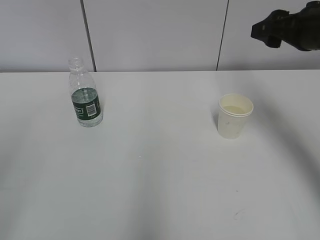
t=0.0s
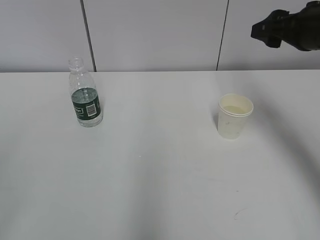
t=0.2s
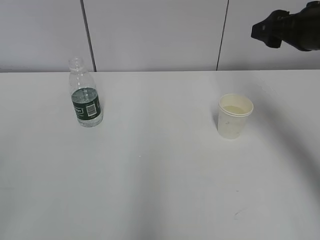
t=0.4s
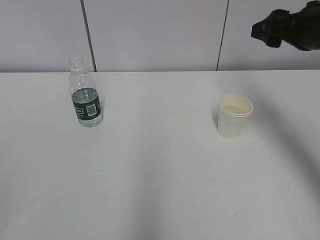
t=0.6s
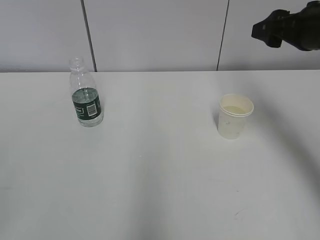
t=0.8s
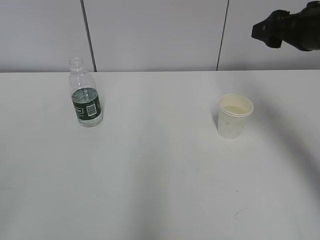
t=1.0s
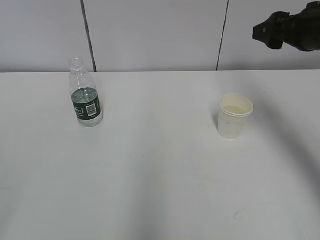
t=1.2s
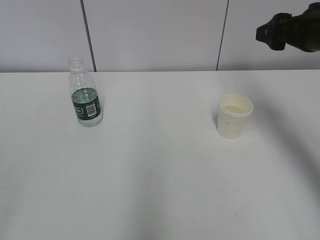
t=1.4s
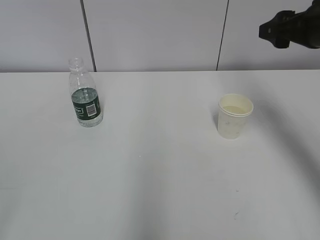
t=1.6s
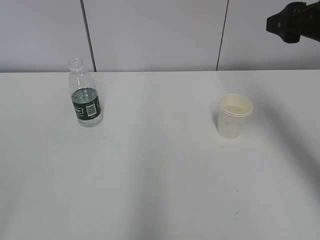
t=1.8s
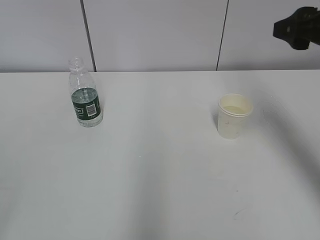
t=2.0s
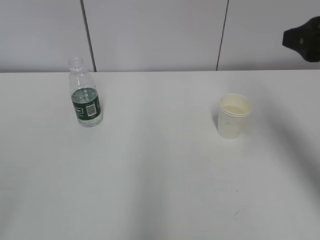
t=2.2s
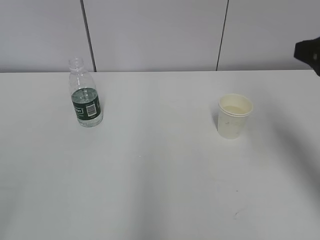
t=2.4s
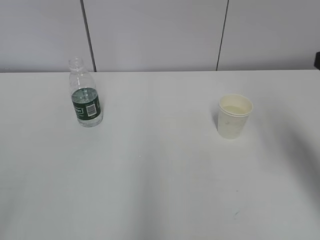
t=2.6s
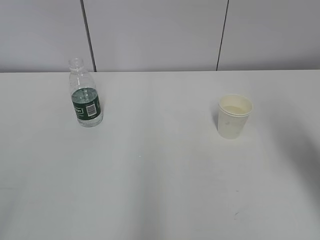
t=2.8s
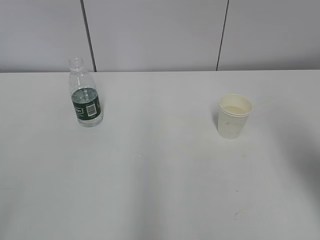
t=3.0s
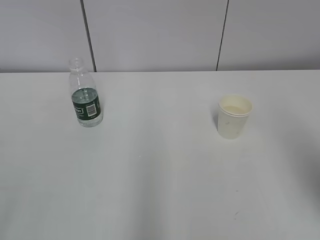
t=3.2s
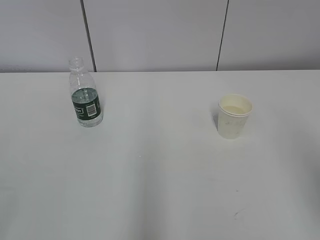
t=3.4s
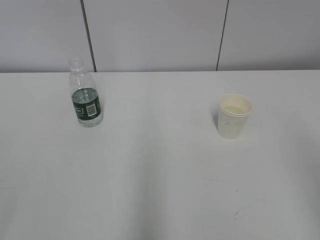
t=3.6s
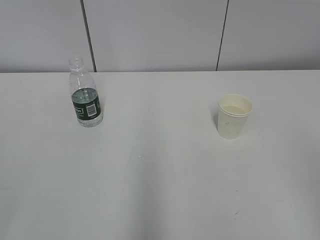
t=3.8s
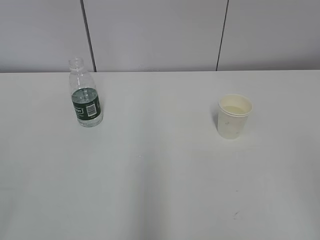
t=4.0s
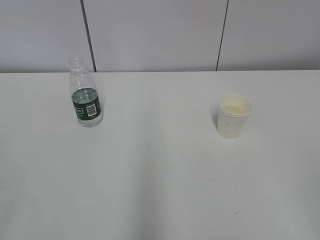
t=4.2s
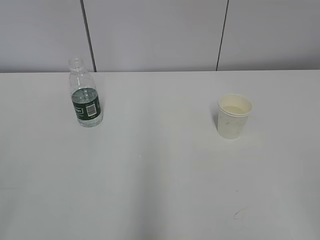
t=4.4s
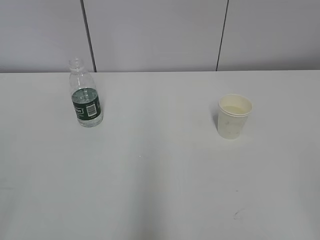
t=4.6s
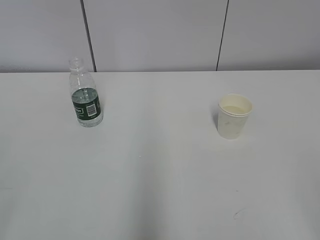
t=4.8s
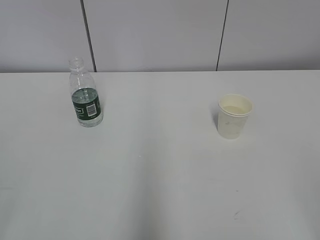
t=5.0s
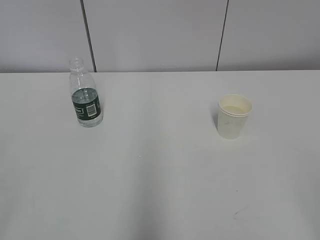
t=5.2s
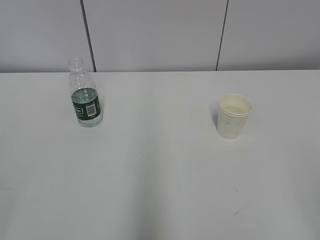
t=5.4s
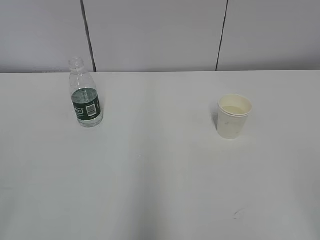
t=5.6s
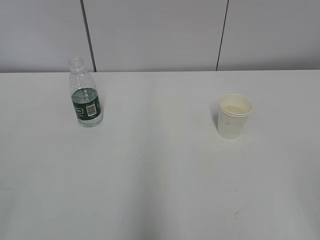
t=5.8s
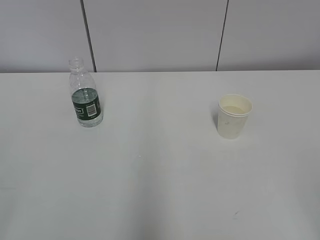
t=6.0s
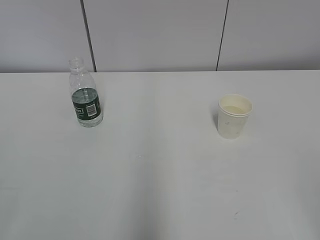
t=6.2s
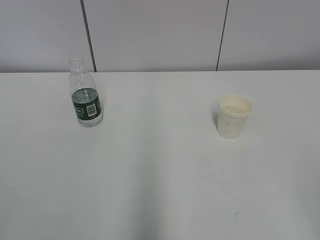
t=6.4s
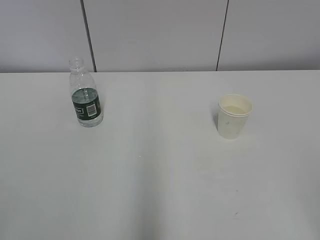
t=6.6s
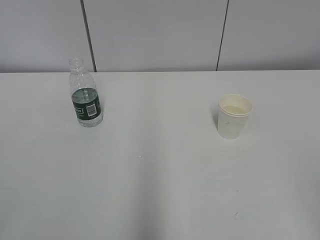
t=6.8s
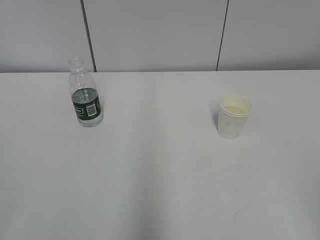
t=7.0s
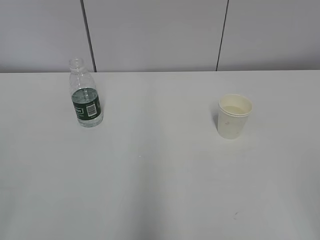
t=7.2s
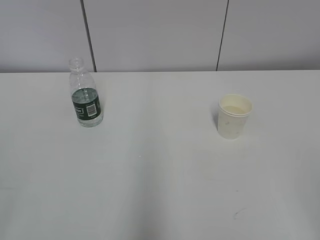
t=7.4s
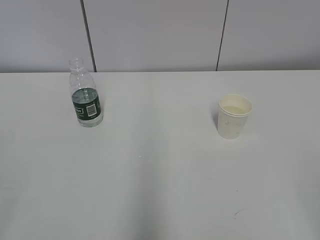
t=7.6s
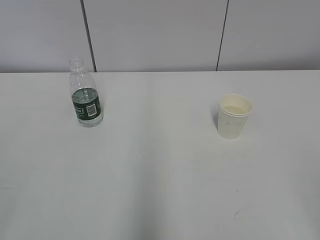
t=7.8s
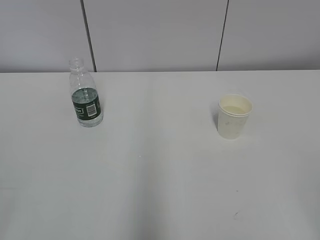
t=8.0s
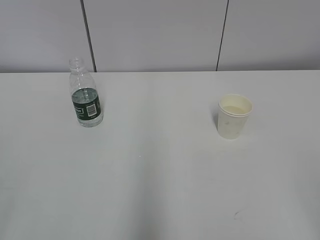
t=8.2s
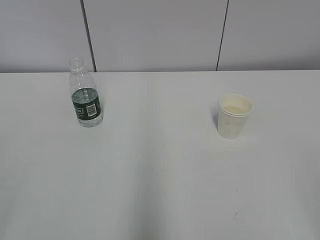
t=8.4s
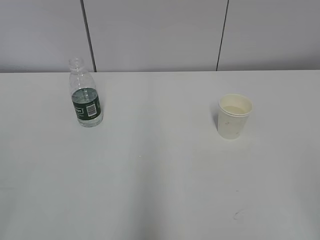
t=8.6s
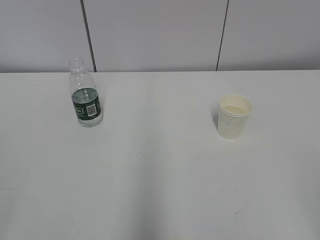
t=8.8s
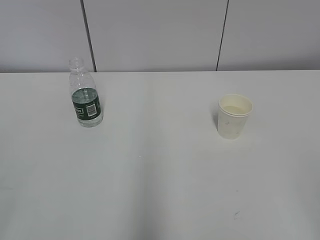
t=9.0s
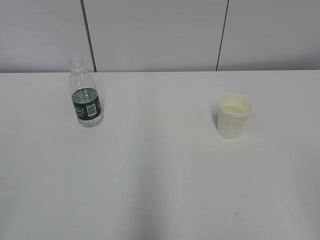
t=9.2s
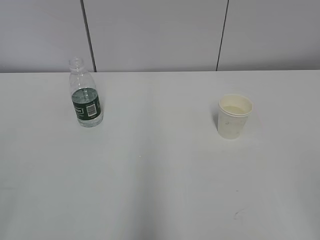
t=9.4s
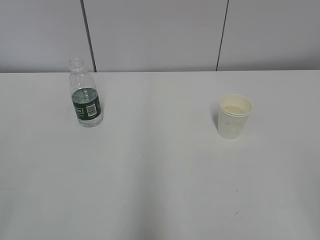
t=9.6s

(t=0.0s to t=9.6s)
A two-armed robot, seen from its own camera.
t=1.6s - t=3.2s: The right gripper travels backward by roughly 20 cm.
t=3.2s - t=4.8s: The right gripper travels backward by about 15 cm.
t=4.8s - t=9.6s: Neither gripper changes place.

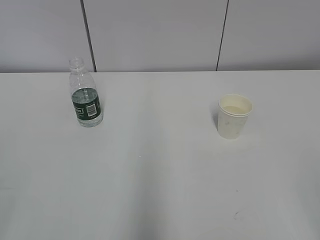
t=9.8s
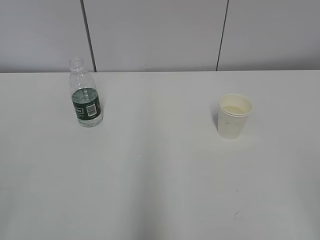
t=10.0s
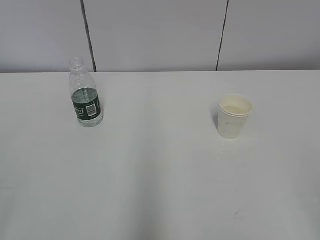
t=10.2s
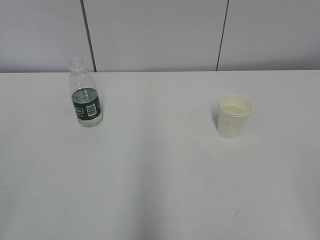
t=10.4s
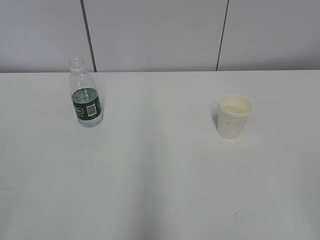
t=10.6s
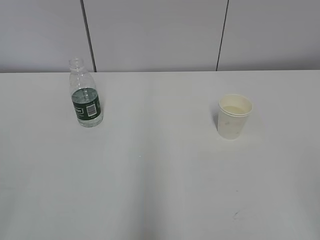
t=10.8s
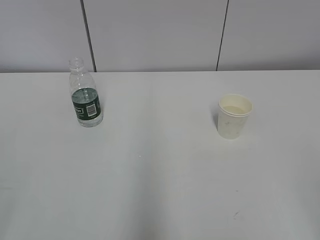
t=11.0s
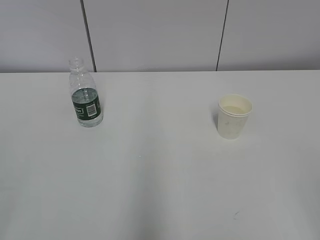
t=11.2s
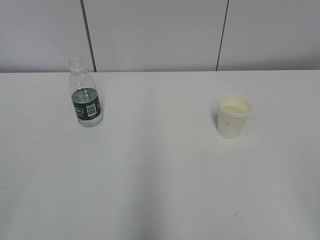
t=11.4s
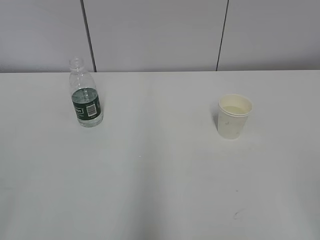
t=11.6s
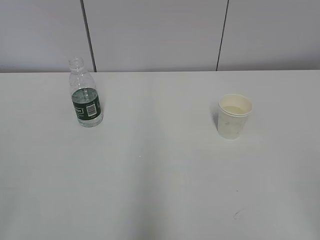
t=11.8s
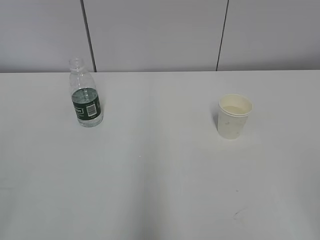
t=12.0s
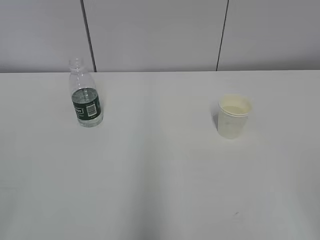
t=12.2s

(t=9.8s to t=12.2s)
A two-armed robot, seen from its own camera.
t=9.8s - t=12.2s: Both grippers stay put.

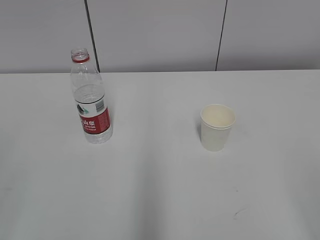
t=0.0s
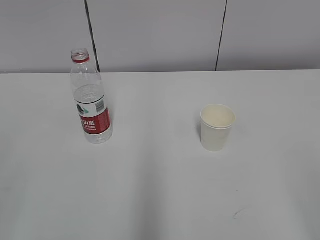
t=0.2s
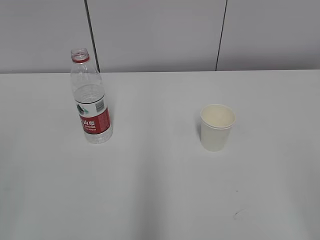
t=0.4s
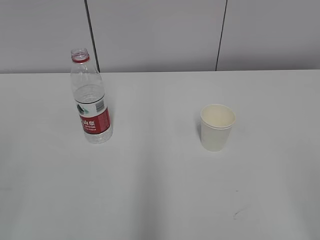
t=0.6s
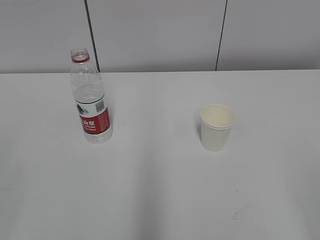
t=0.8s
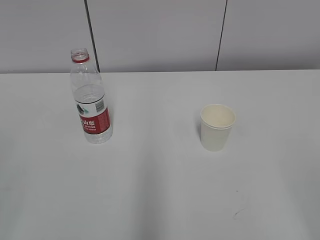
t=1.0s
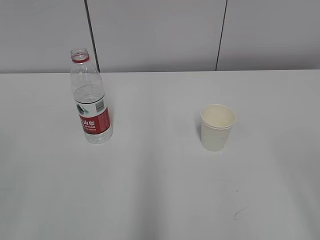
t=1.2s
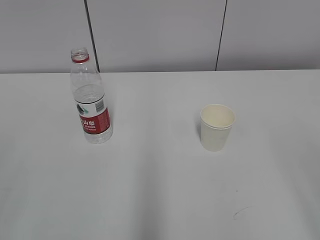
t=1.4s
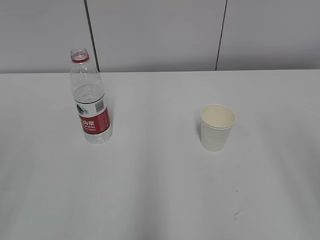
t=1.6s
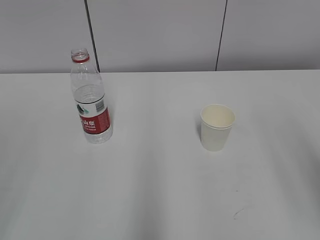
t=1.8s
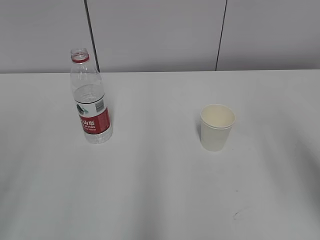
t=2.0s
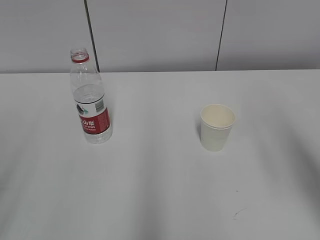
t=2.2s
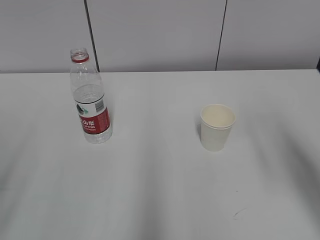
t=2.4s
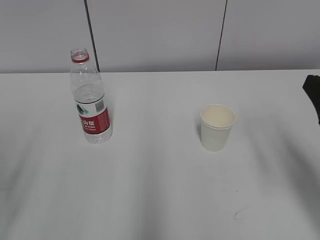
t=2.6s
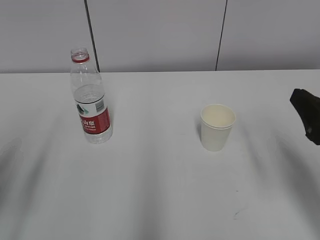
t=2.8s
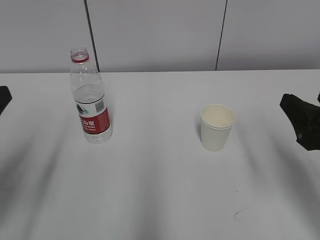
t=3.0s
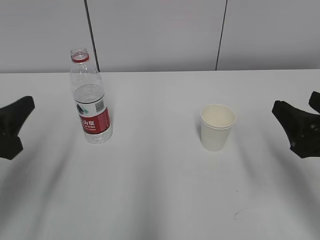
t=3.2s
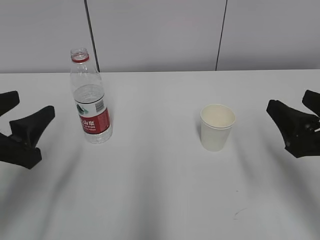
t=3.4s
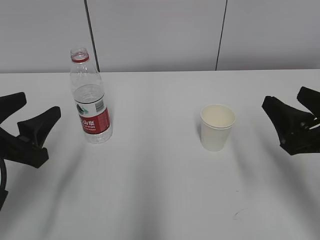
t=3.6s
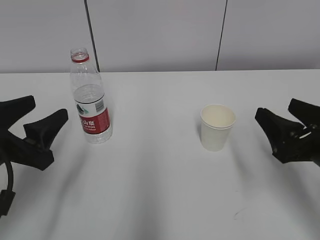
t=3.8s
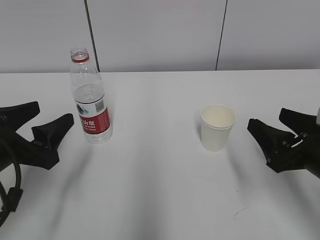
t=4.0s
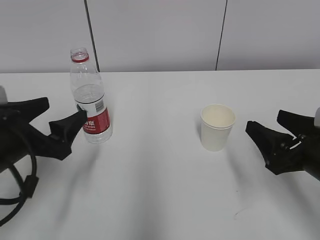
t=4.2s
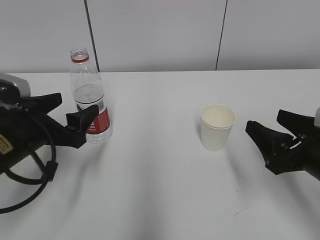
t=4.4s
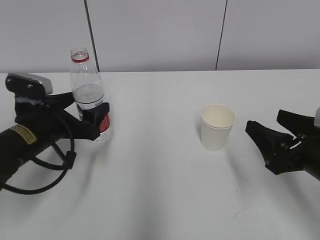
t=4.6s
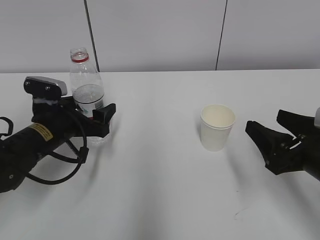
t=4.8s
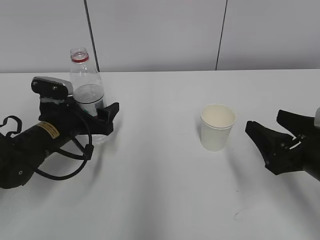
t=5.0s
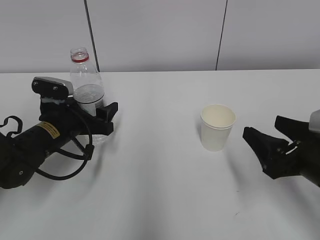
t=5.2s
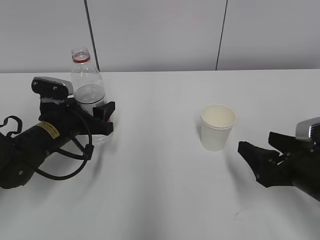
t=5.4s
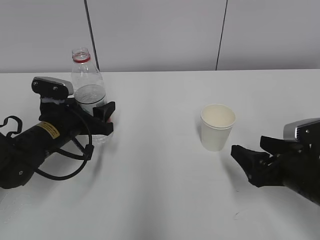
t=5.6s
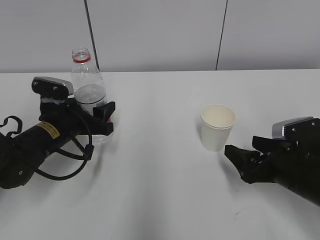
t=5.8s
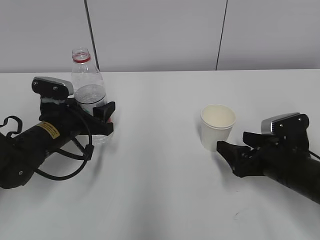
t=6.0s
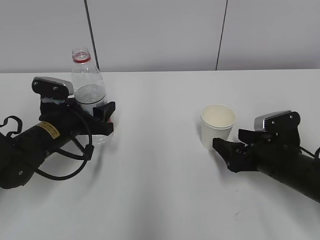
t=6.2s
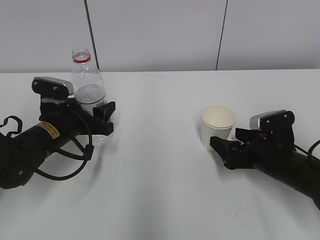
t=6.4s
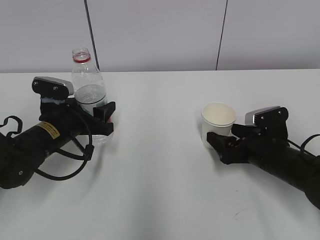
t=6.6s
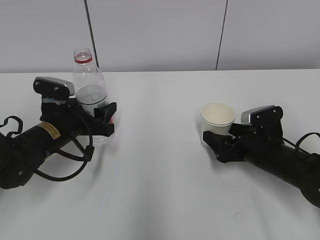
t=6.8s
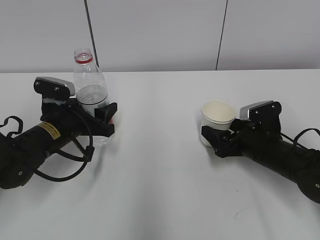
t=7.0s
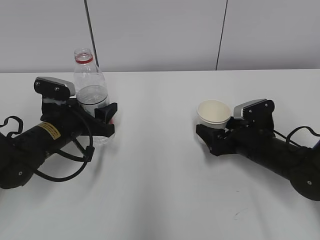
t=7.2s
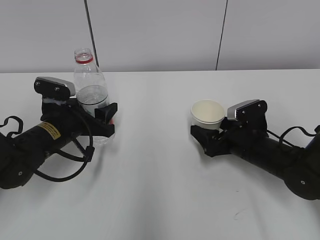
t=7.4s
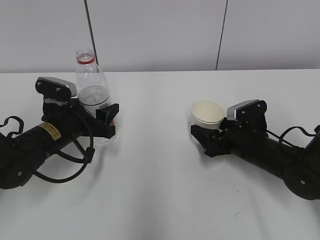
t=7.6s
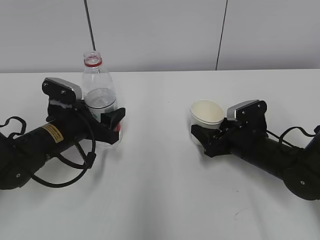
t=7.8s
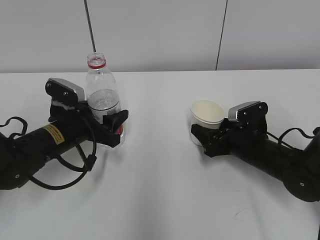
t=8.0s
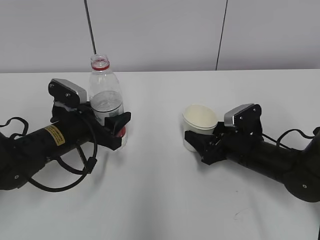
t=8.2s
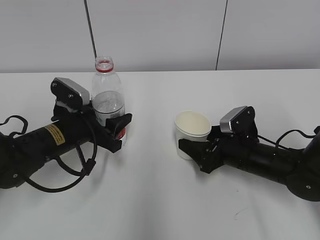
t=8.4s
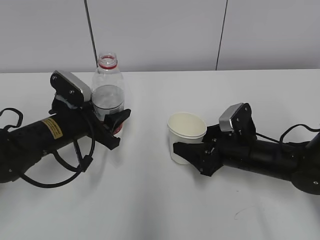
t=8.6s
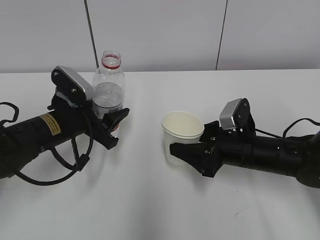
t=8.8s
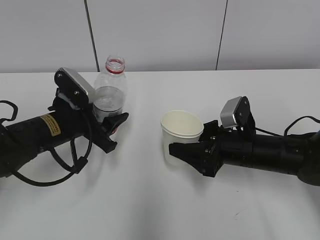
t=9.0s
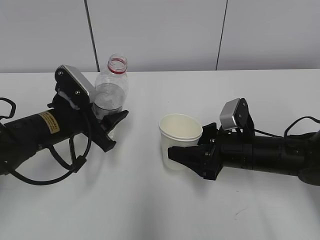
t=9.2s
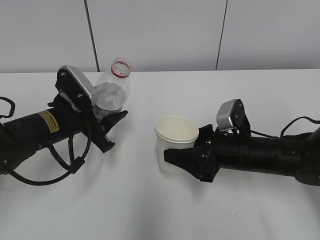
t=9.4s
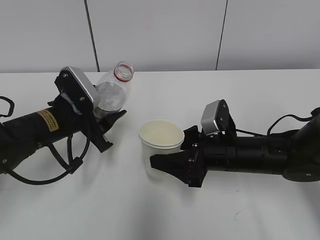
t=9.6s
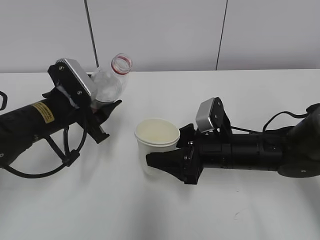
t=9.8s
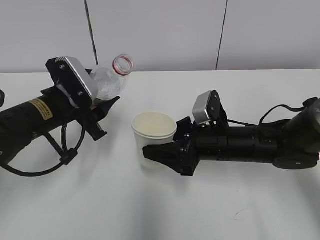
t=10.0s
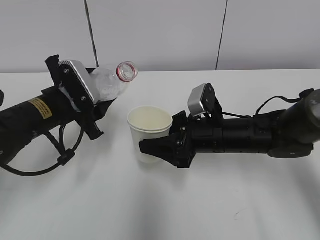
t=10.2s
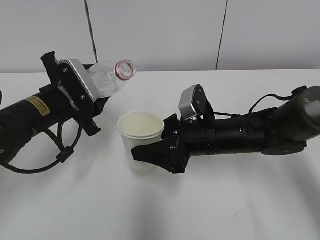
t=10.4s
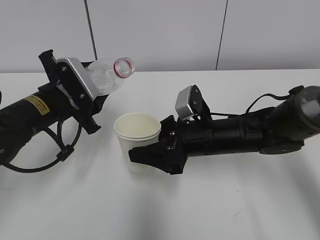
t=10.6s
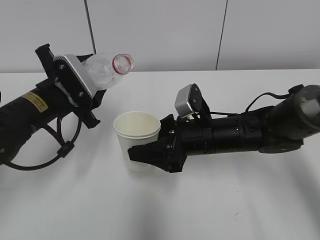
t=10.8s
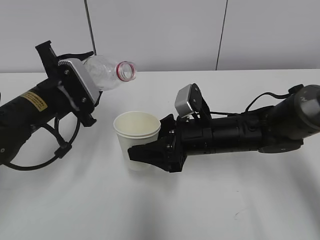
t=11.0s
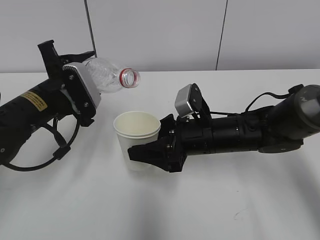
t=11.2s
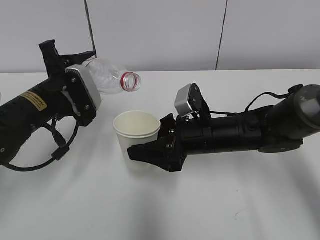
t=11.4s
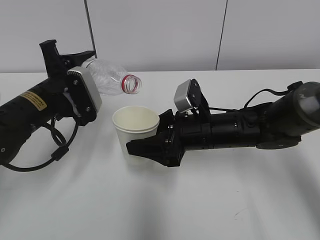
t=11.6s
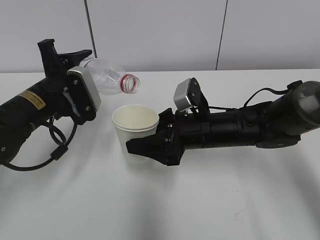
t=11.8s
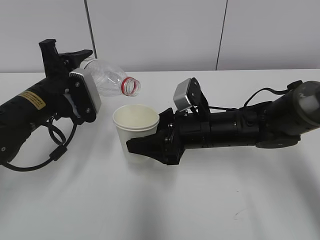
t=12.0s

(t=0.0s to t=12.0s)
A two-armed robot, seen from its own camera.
Step, t=0.0s - t=6.8s: Grab the water bottle with the left hand.
Step, t=7.2s - t=10.6s: Lift the paper cup with the right hand.
t=1.6s - t=3.0s: The two grippers go some 20 cm forward and downward.
t=3.0s - t=4.4s: The left gripper shifts some 15 cm forward, downward and to the right, and opens; the right gripper shifts by approximately 5 cm.
t=4.4s - t=6.0s: The left gripper is displaced forward and downward by some 10 cm, and closes up, while the right gripper heads downward and forward, covering roughly 10 cm, and opens its fingers.
t=6.0s - t=7.6s: The right gripper shifts about 5 cm forward, and closes up.
t=7.6s - t=9.0s: The right gripper ends up about 5 cm from where it was, and closes up.
t=9.0s - t=10.4s: The right gripper shifts some 5 cm to the left.
